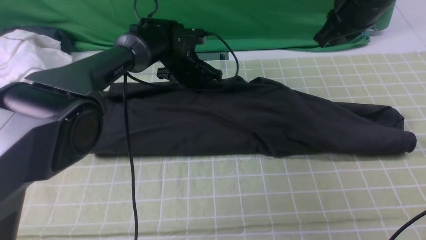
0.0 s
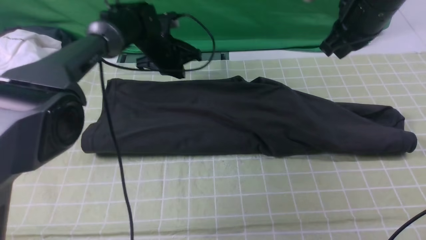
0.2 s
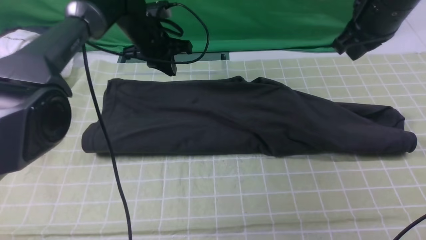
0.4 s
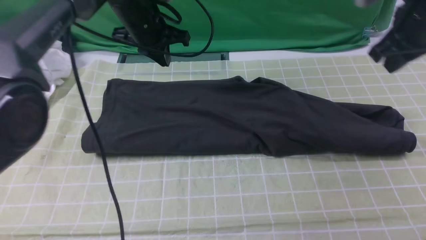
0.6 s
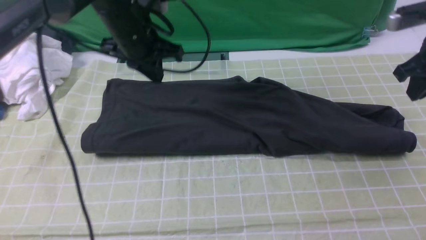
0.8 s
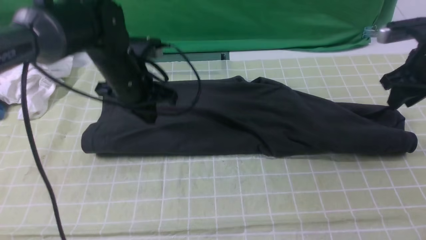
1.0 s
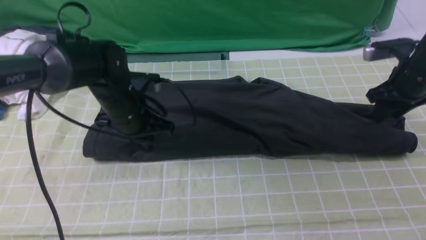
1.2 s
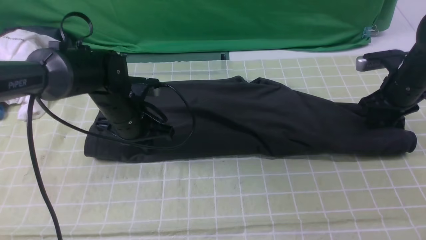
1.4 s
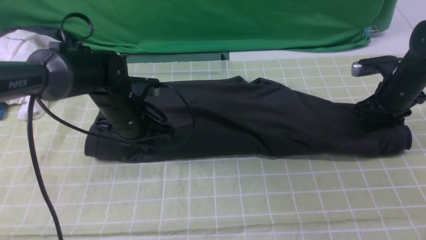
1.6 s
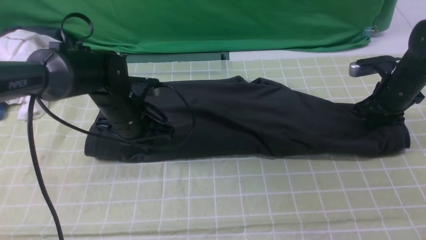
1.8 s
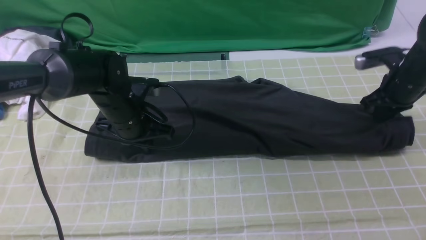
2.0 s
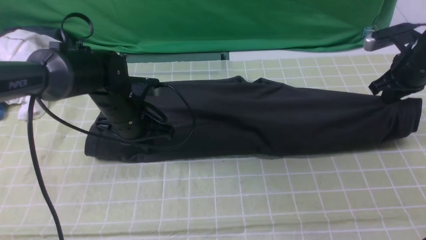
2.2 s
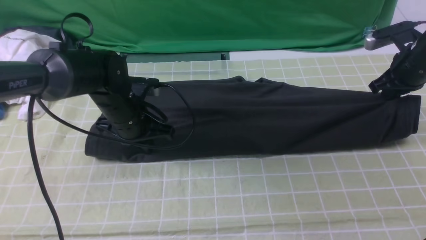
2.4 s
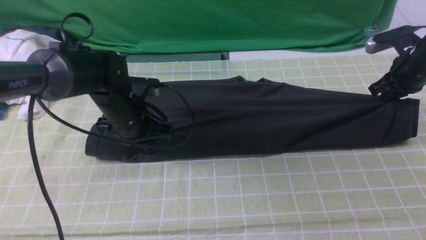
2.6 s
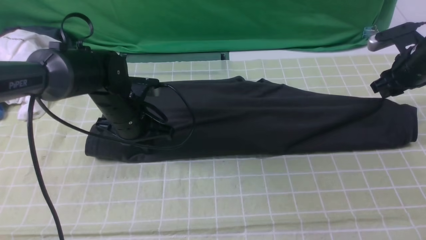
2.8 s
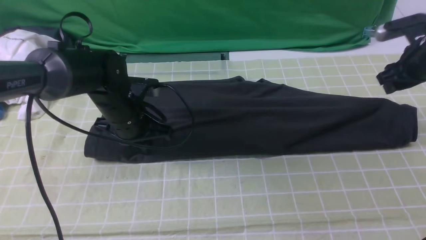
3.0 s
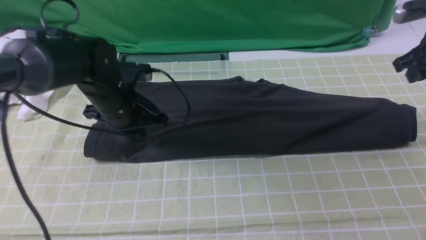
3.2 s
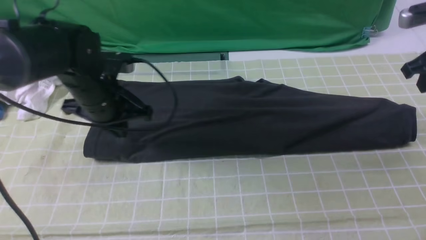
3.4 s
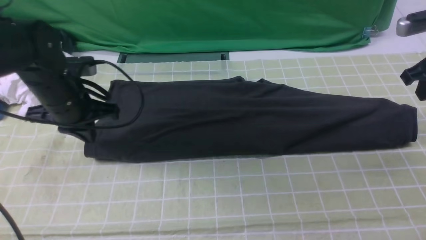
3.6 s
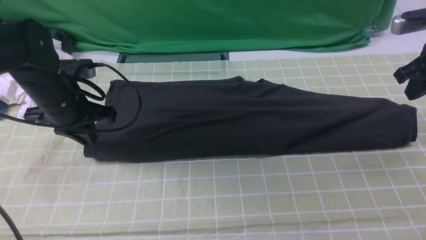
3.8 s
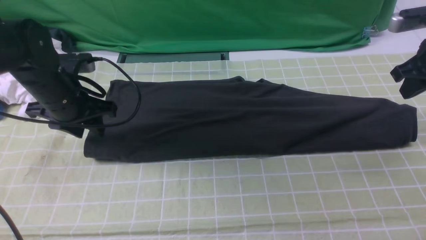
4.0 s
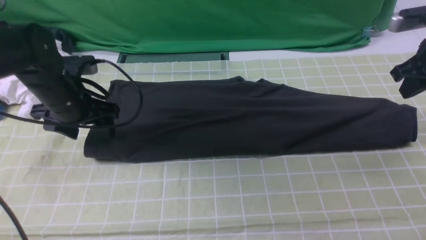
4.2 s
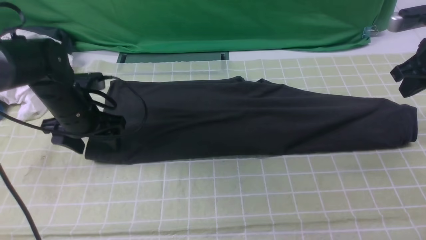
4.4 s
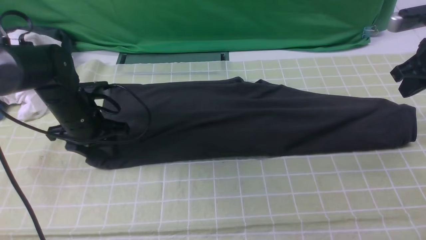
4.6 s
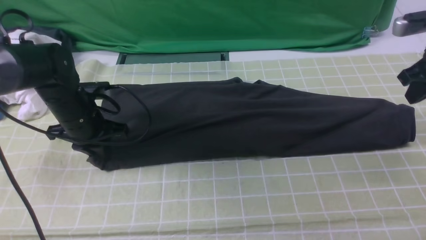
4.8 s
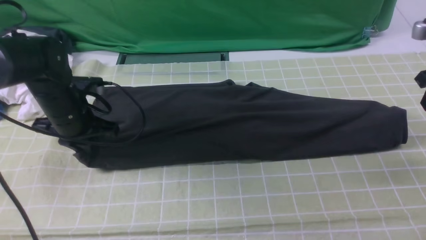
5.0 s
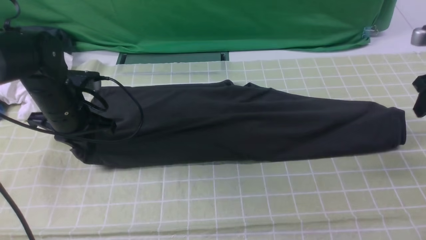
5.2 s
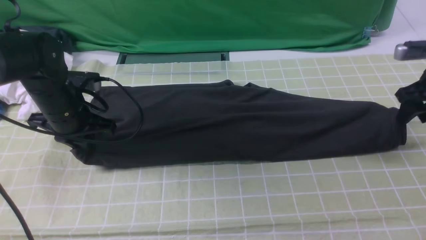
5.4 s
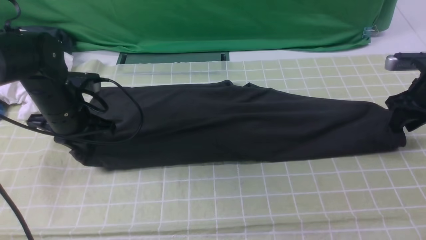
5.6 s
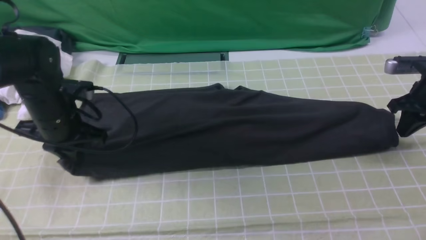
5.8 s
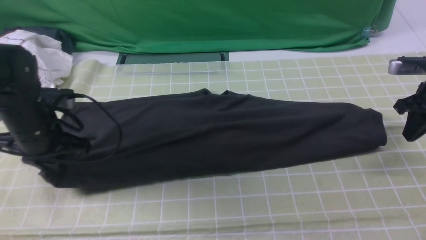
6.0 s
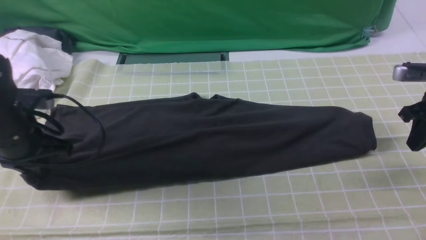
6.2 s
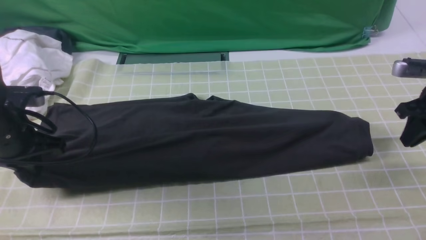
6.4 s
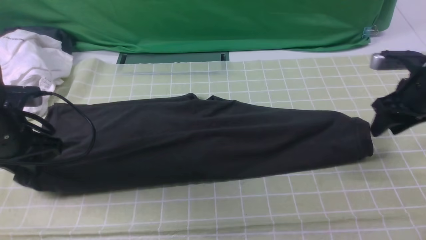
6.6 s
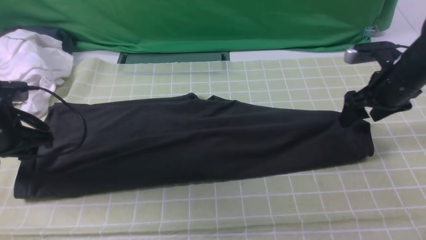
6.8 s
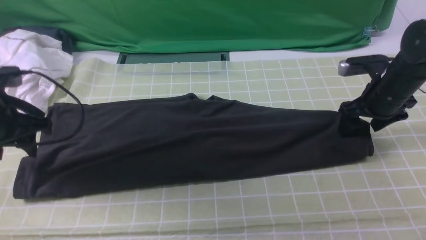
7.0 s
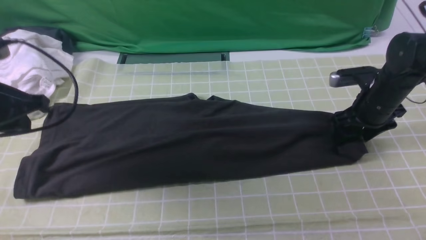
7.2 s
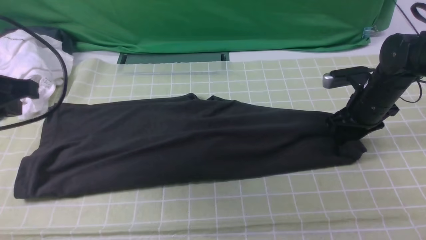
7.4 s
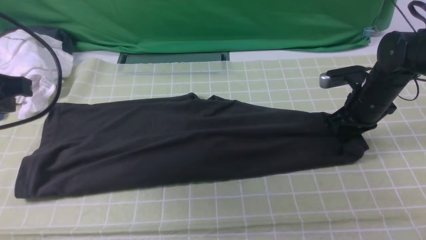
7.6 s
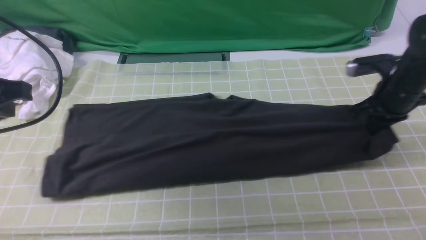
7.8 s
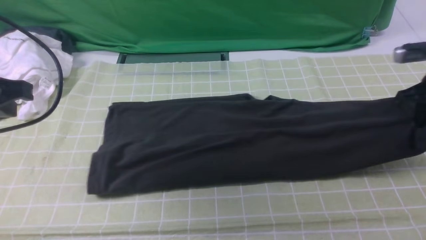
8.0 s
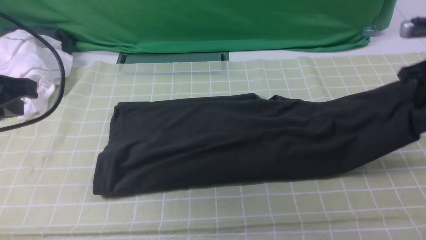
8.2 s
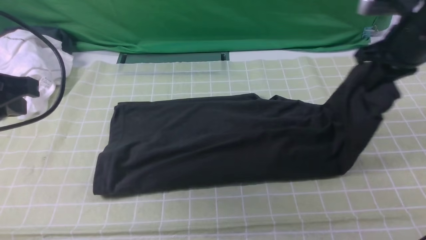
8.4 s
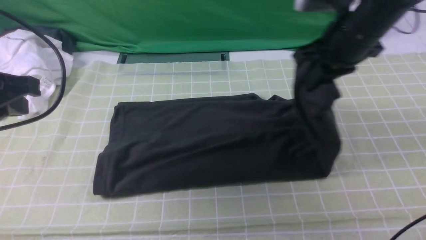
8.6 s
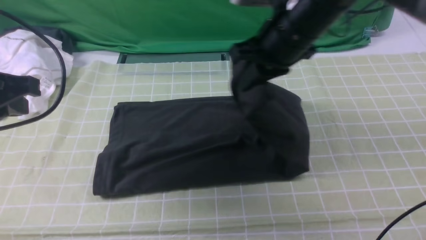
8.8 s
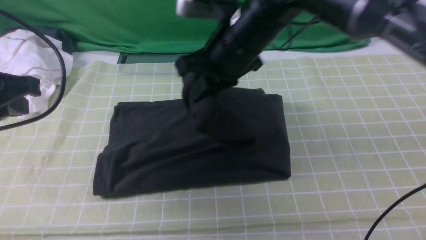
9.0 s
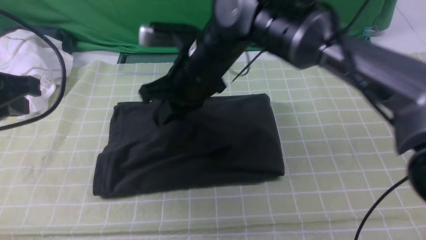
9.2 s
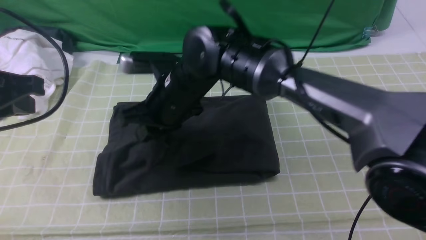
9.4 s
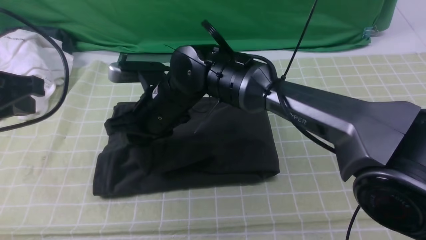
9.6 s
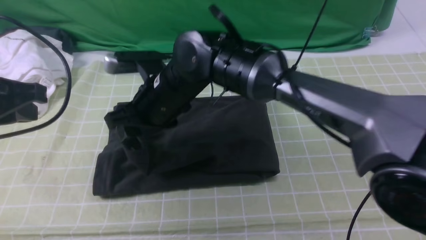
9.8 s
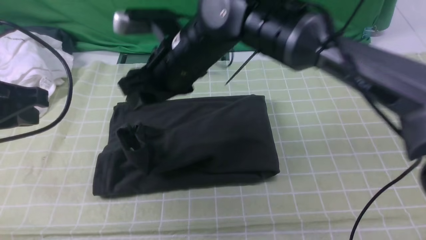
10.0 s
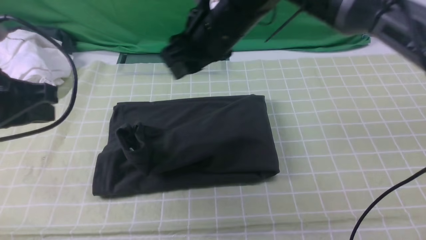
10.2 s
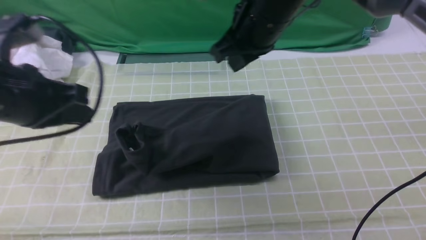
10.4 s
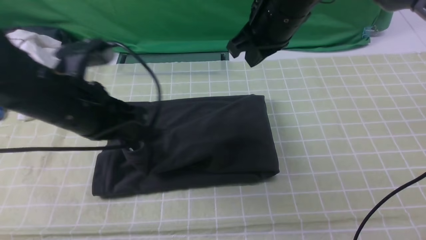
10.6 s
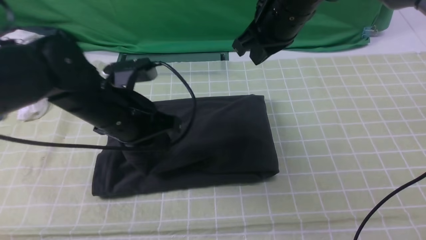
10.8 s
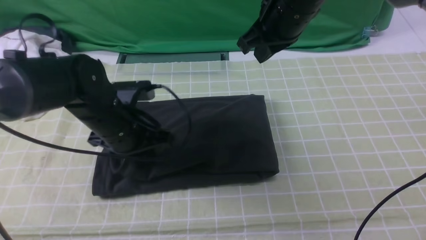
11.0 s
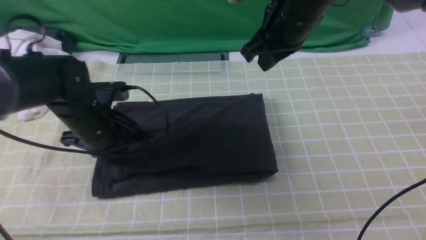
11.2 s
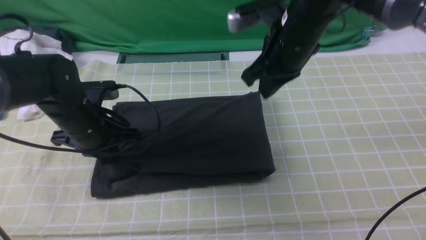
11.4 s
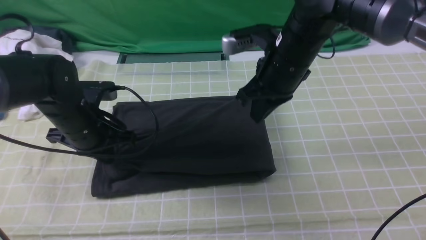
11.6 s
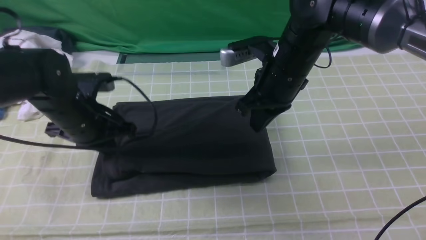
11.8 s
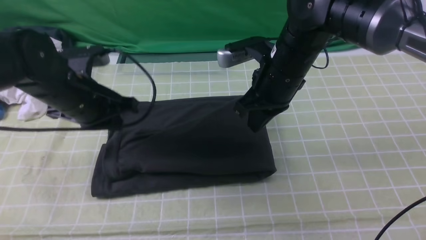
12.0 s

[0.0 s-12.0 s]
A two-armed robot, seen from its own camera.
Step, 0.4 to 7.6 s: use the right arm to clamp the right edge of the fabric.
Step, 7.8 to 10.0 s: use the right arm to drag the right edge of the fabric to the left and folds it over the left edge.
0.0 to 1.6 s: The right gripper moves downward and to the right, some 20 cm, and opens its fingers, while the left gripper heads backward, covering about 15 cm.
1.6 to 3.0 s: The right gripper travels upward by about 5 cm, and closes, then reopens.
3.0 to 4.4 s: The left gripper goes about 10 cm to the left, and opens, while the right gripper changes place by about 5 cm, and closes up.
4.4 to 6.0 s: The left gripper shifts roughly 5 cm backward, and closes. Meanwhile the right gripper shifts roughly 10 cm downward, and opens, then closes again.
6.0 to 7.6 s: The right gripper is displaced to the left by about 10 cm, and opens and closes again. The left gripper shifts some 15 cm upward and backward, and opens, then closes again.
7.6 to 9.0 s: The right gripper travels to the left and upward by some 30 cm.
9.0 to 10.4 s: The right gripper travels to the left and back again, approximately 10 cm each way, and opens and closes again; the left gripper is displaced to the right by approximately 5 cm.
10.4 to 12.0 s: The left gripper travels downward and forward by roughly 10 cm, while the right gripper goes approximately 10 cm downward.

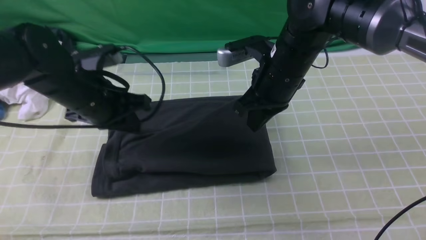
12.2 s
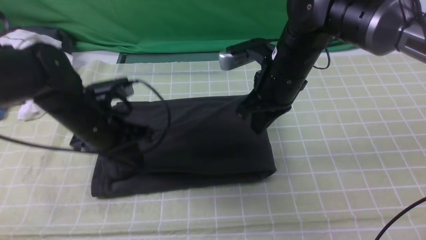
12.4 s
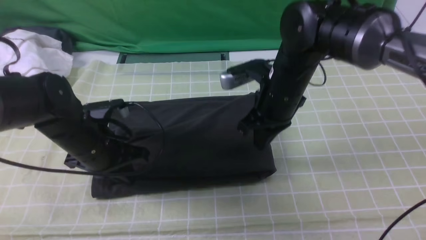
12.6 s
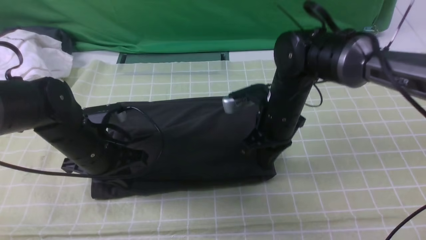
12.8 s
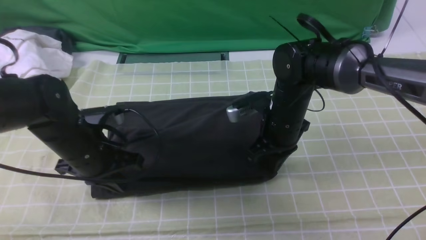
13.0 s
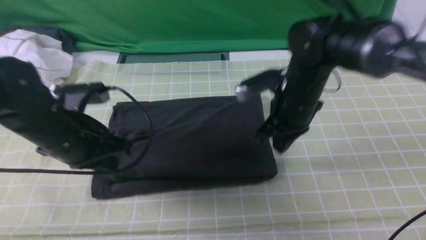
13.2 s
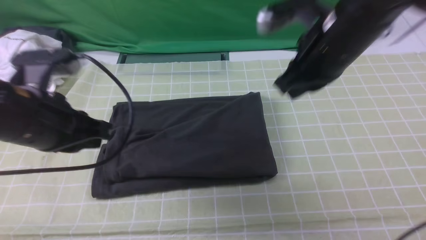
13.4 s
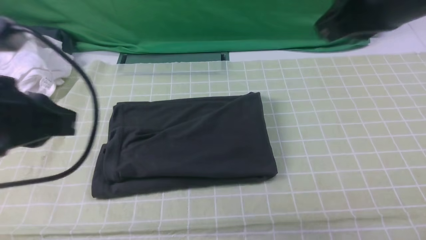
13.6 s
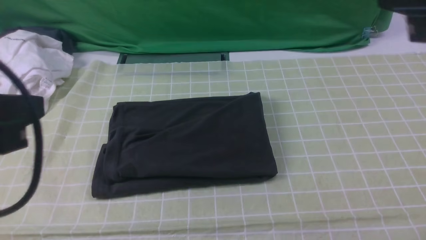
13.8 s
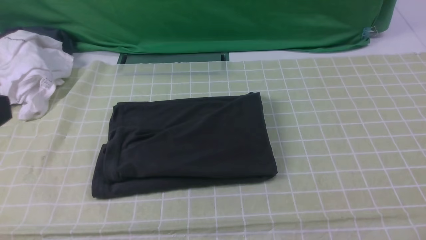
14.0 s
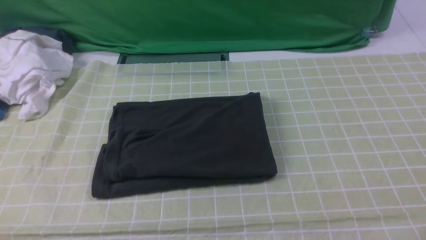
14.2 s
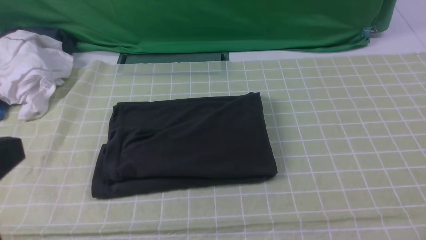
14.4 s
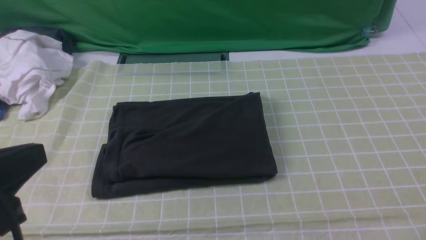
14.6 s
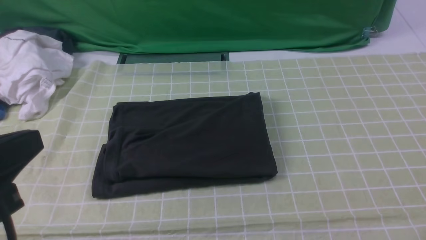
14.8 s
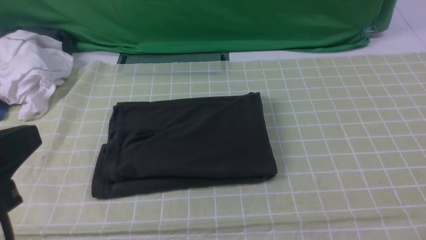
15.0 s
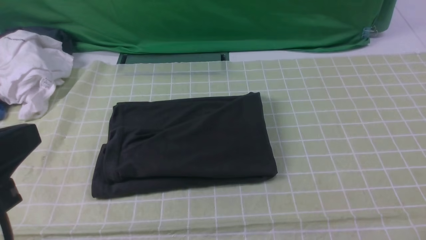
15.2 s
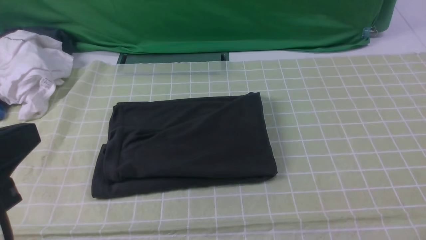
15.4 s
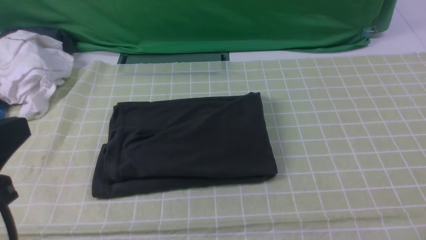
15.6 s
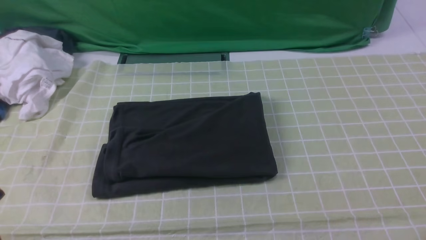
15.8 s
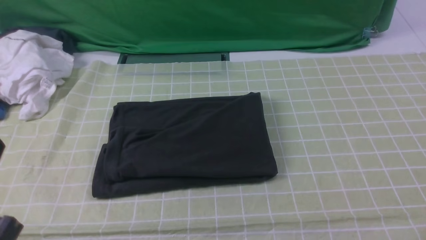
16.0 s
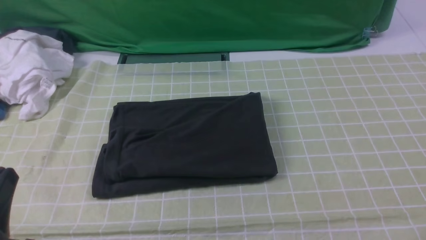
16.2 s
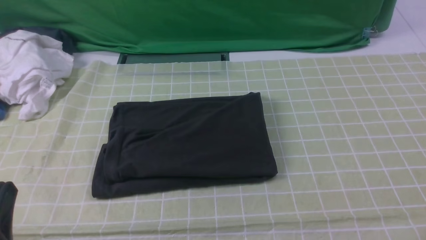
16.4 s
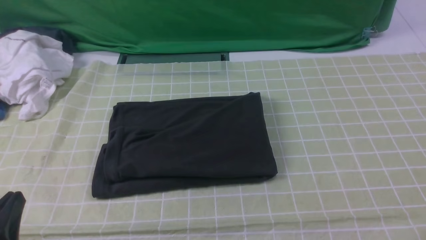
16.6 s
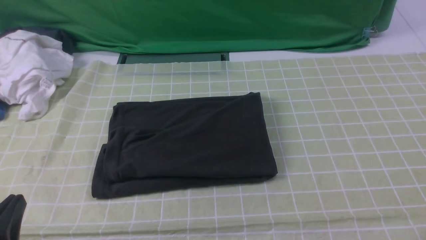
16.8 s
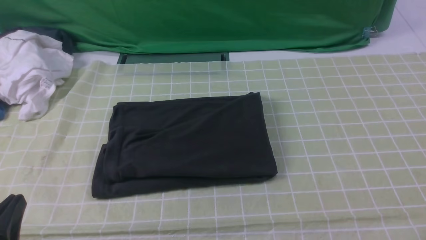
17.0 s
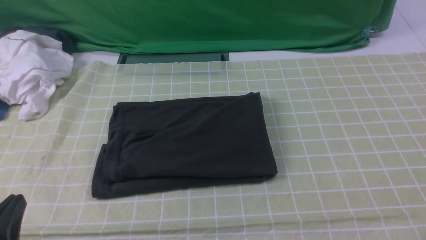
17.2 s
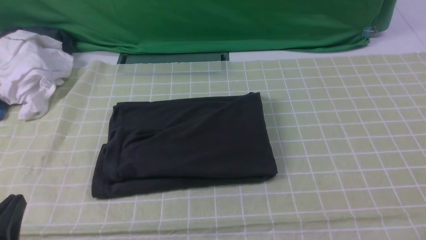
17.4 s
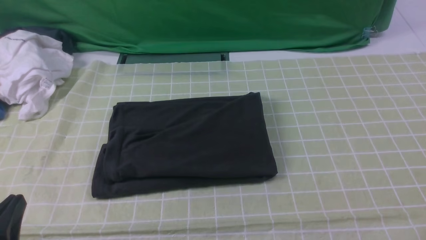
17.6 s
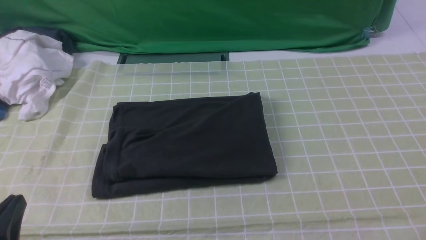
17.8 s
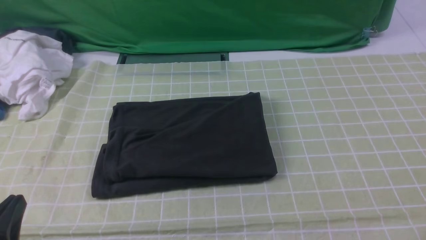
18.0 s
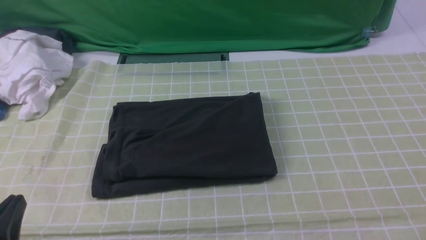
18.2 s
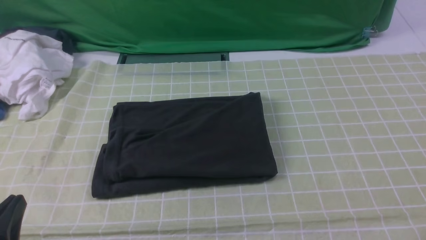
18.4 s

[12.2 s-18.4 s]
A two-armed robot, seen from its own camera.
12.2 to 13.8 s: The left gripper shifts approximately 25 cm backward and upward. The right gripper goes about 30 cm backward, upward and to the right.
13.8 to 15.4 s: The left gripper shifts by about 5 cm. Meanwhile the right gripper moves backward, to the right and downward, roughly 20 cm, and opens its fingers.
15.4 to 16.8 s: The left gripper is displaced downward by some 15 cm.
